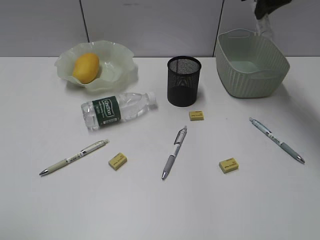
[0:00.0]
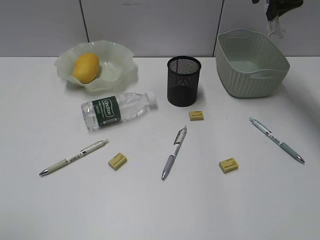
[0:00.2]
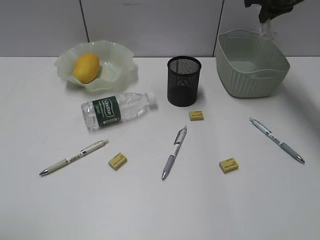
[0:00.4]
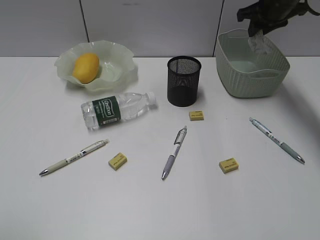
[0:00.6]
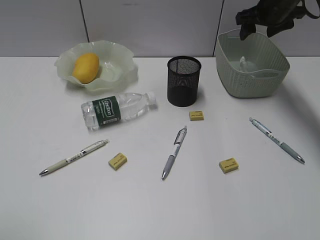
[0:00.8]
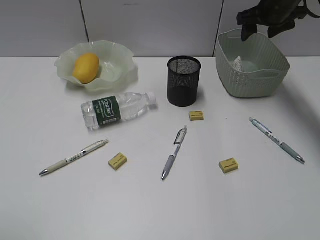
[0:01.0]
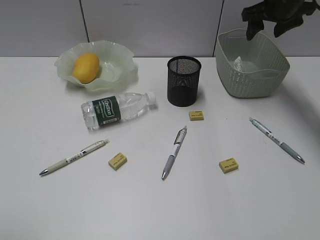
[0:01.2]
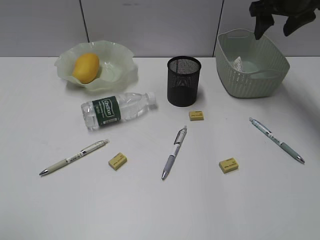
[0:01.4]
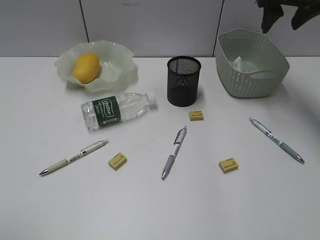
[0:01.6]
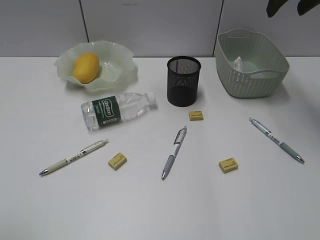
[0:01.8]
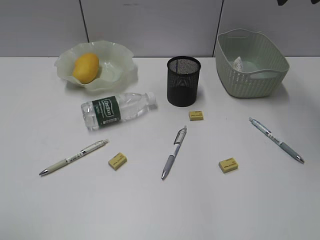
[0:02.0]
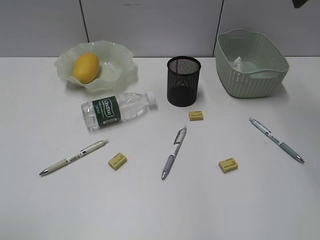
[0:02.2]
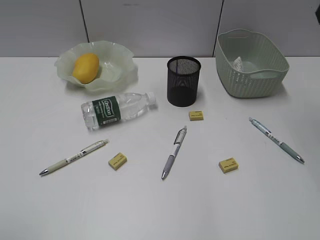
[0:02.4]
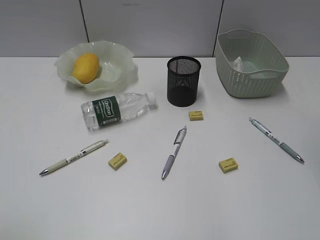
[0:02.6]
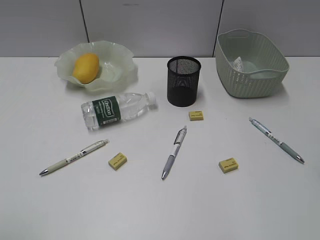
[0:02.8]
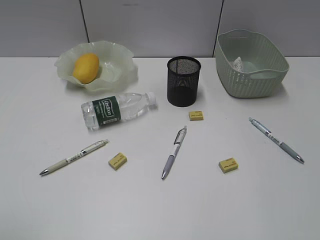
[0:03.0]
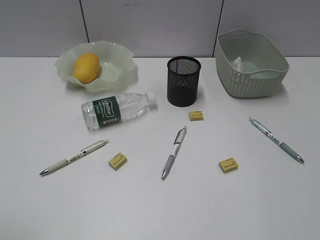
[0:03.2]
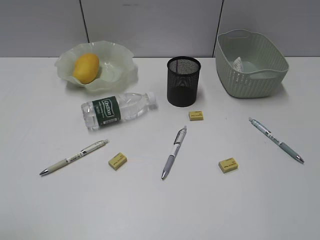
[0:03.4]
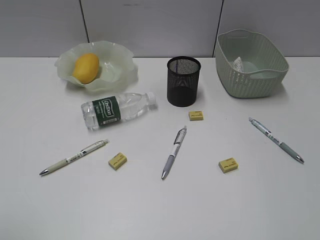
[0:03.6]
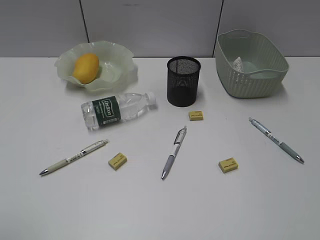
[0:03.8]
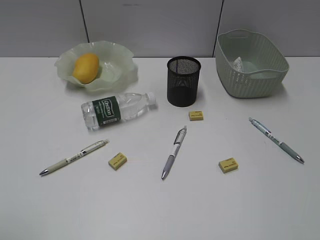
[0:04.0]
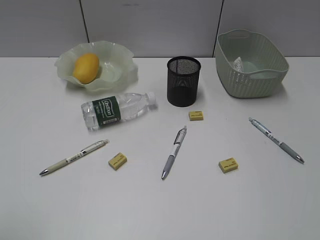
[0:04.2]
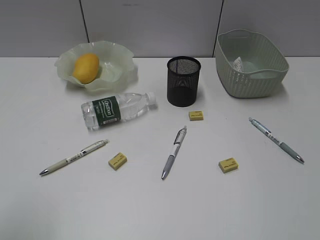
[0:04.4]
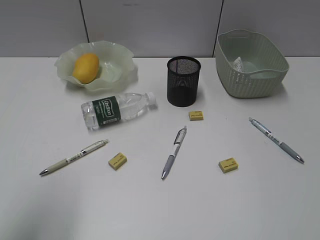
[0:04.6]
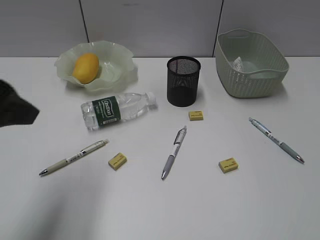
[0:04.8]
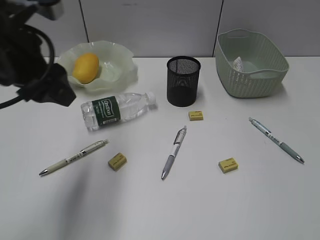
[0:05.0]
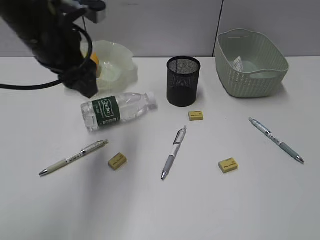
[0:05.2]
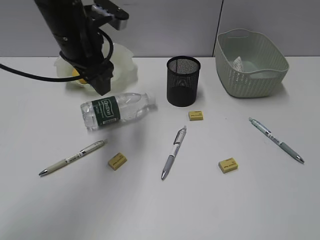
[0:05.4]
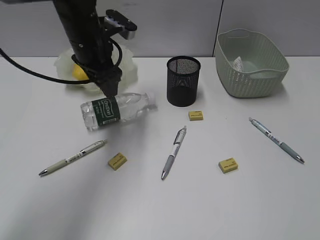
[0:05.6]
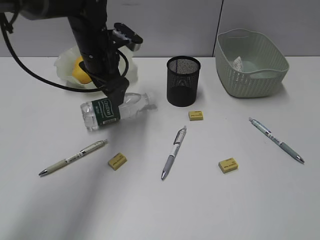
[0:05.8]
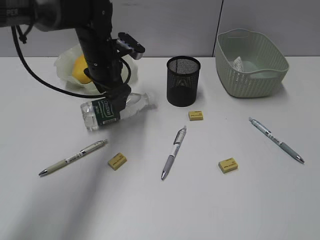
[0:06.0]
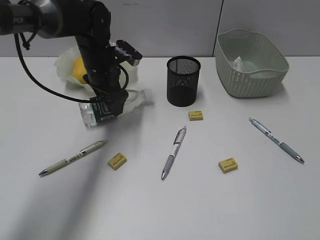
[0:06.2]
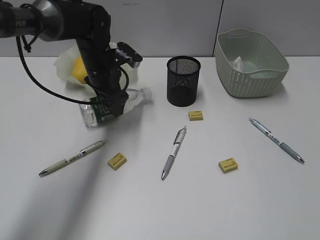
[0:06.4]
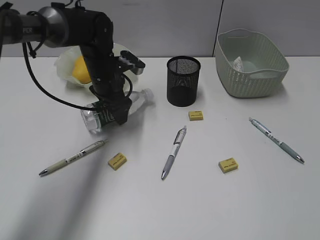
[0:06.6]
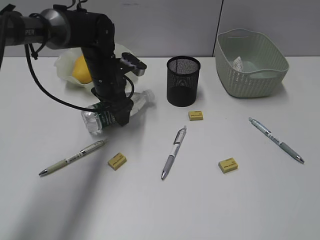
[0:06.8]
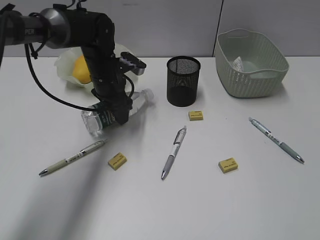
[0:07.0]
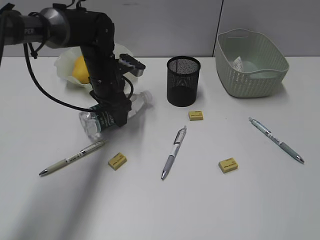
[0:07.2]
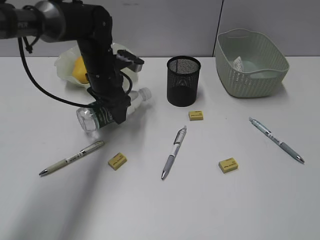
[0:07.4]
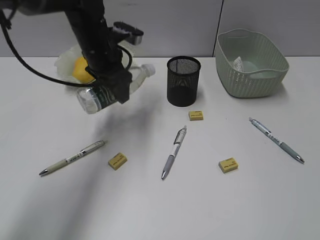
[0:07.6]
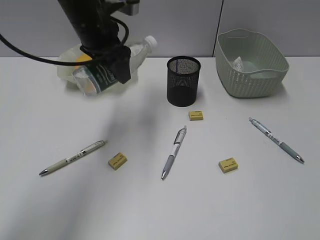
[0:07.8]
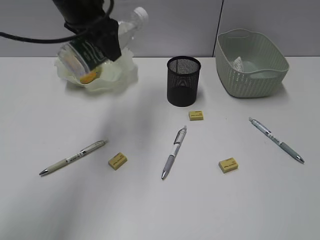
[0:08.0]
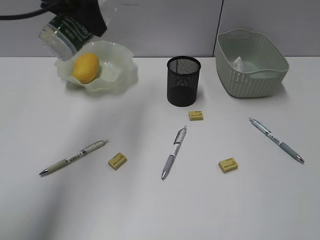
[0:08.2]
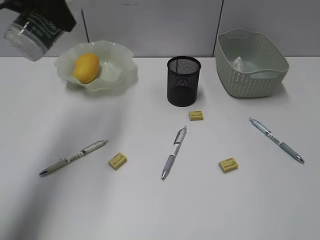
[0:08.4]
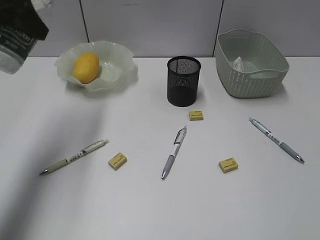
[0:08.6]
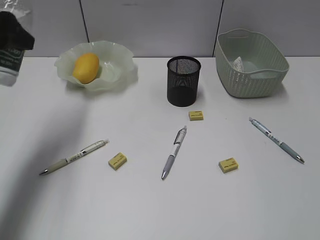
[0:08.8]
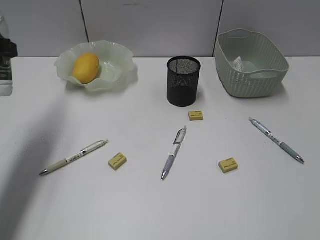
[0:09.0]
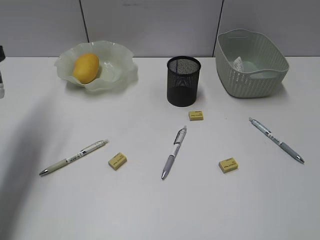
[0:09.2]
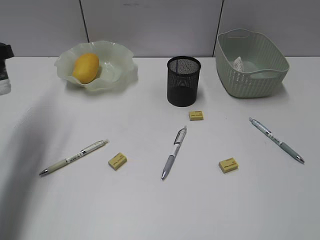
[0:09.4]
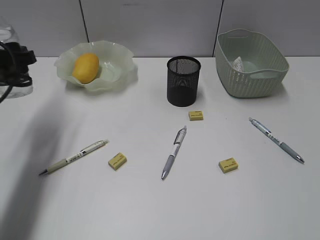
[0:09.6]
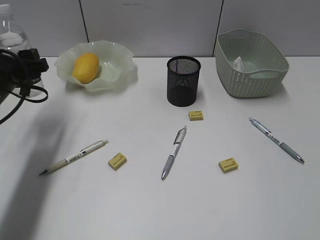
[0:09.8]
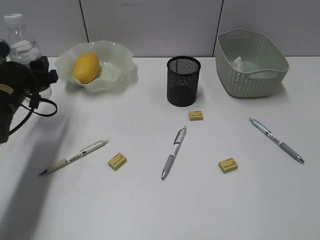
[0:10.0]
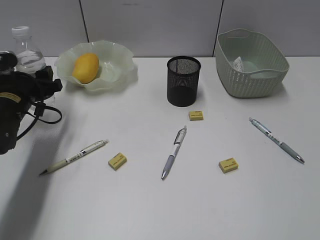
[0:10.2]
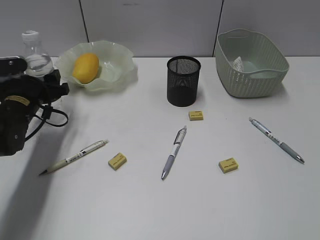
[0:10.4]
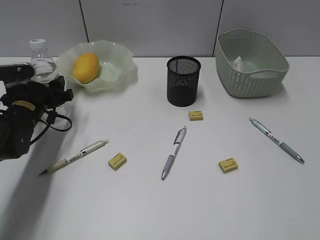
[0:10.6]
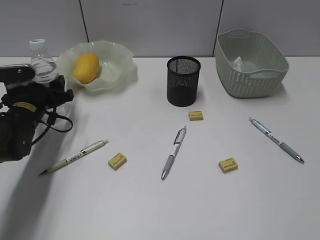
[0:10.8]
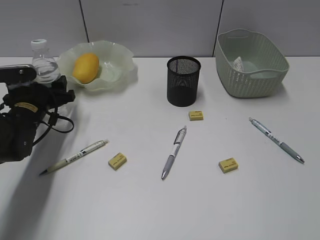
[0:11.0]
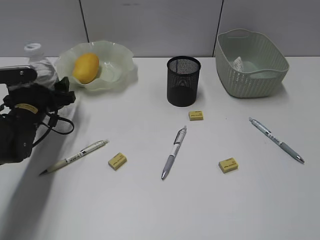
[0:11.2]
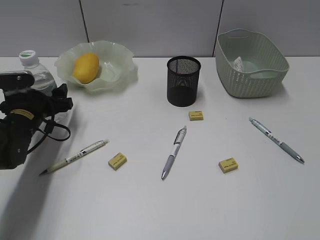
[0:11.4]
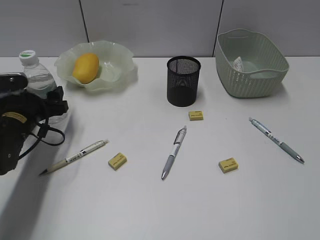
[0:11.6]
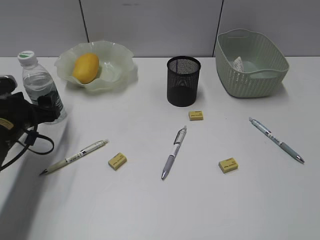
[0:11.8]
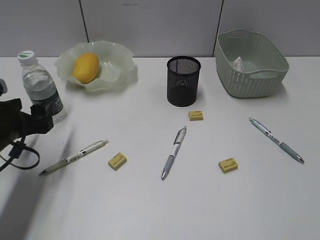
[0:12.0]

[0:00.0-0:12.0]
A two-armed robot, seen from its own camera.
Step, 0:01.0 to 0:06.8: Grasp the bottle with left gripper.
Step, 0:07.0 to 0:11.8: Stand the bottle with left gripper.
0:00.0 to 0:01.6: The right gripper opens.
0:01.6 to 0:03.0: The right gripper goes some 35 cm backward.
0:04.4 to 0:06.0: The left gripper heads forward and to the right, covering about 40 cm.
0:06.0 to 0:07.6: The grippers stay close to where they were, moving slightly.
0:07.6 to 0:09.0: The left gripper heads to the left and backward, covering roughly 20 cm.
0:09.0 to 0:10.4: The left gripper goes about 20 cm downward and forward.
0:10.4 to 0:12.0: The left gripper travels backward by some 10 cm.

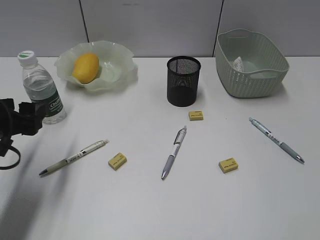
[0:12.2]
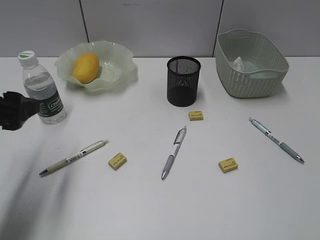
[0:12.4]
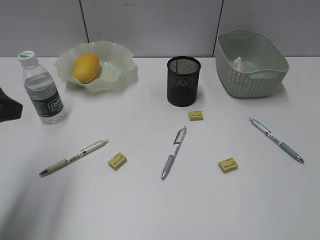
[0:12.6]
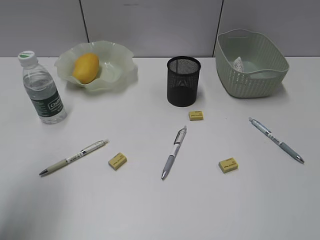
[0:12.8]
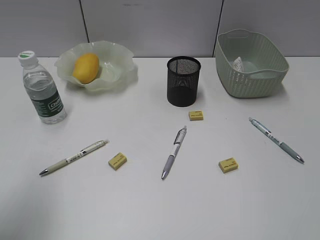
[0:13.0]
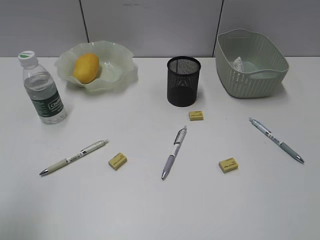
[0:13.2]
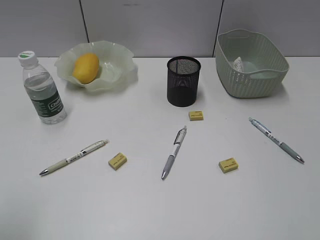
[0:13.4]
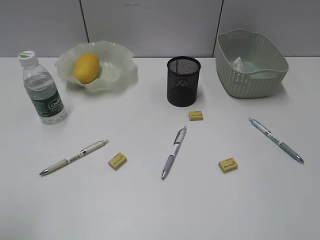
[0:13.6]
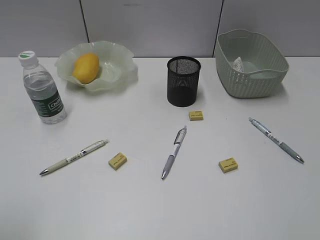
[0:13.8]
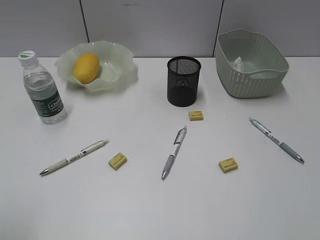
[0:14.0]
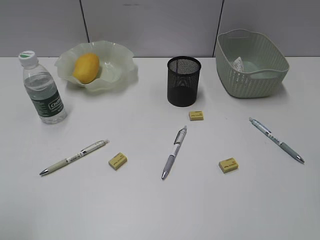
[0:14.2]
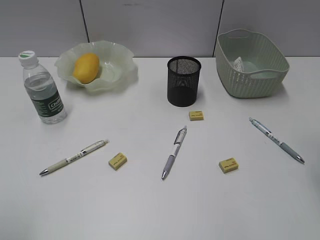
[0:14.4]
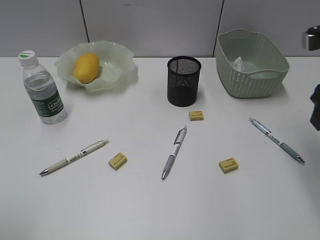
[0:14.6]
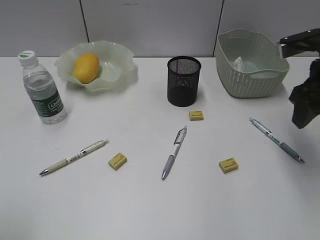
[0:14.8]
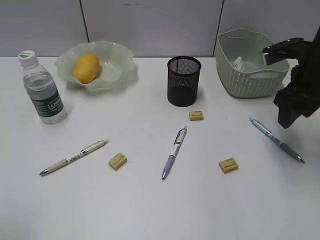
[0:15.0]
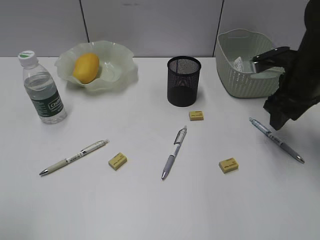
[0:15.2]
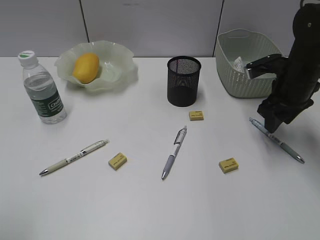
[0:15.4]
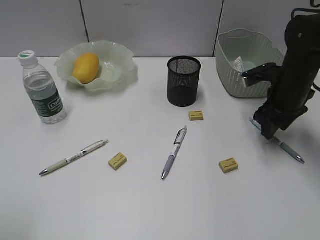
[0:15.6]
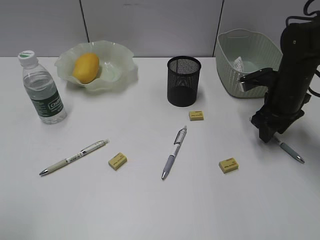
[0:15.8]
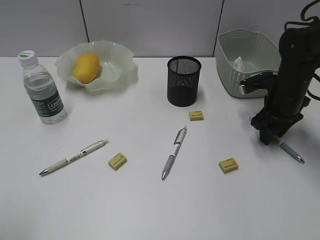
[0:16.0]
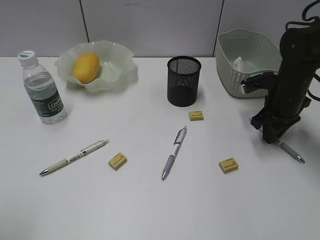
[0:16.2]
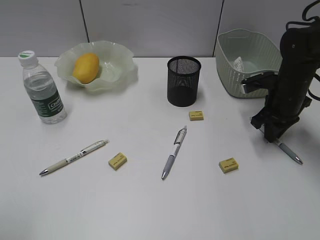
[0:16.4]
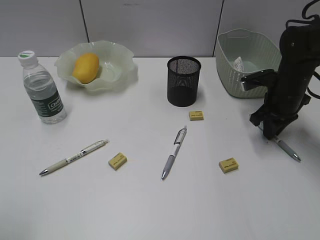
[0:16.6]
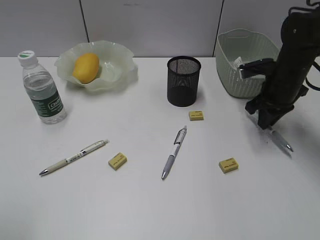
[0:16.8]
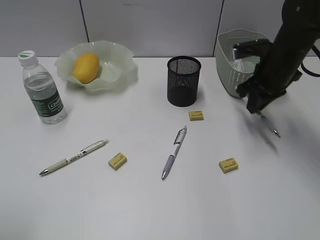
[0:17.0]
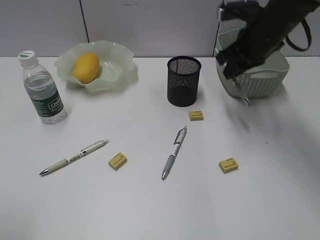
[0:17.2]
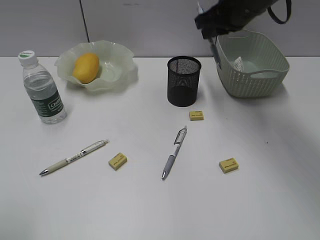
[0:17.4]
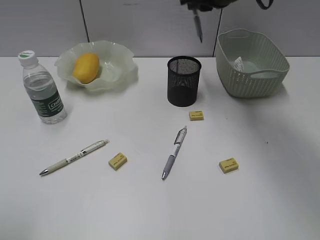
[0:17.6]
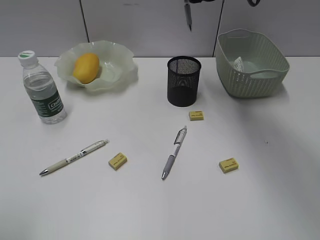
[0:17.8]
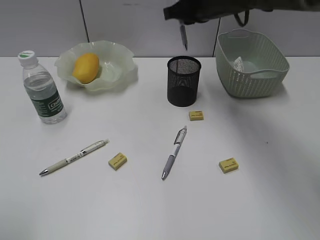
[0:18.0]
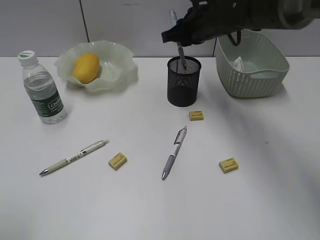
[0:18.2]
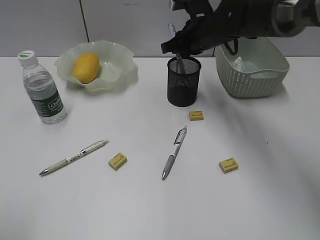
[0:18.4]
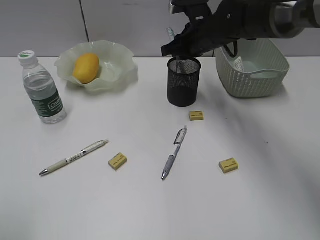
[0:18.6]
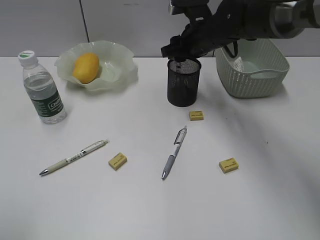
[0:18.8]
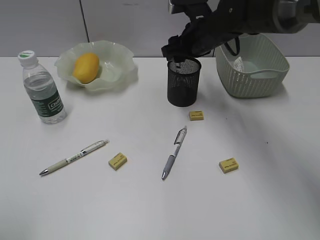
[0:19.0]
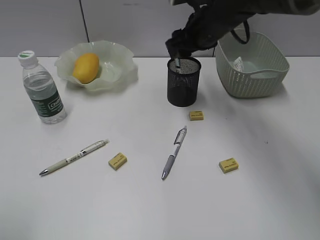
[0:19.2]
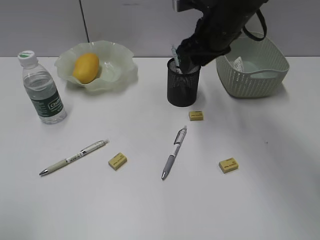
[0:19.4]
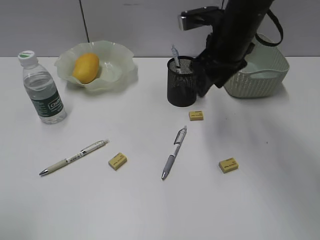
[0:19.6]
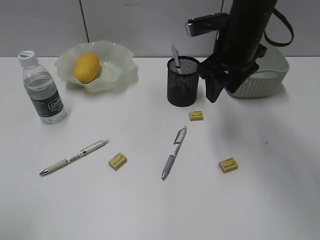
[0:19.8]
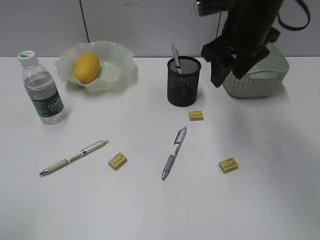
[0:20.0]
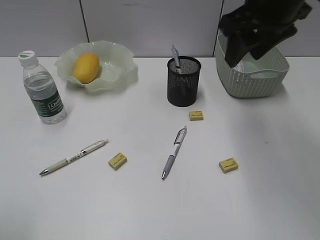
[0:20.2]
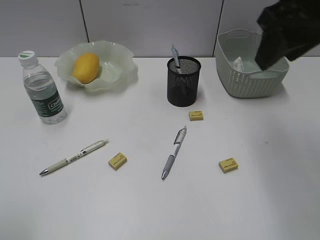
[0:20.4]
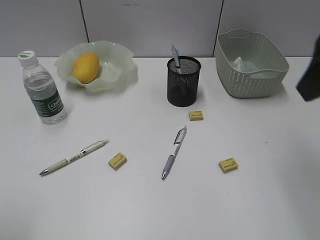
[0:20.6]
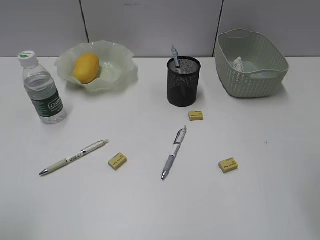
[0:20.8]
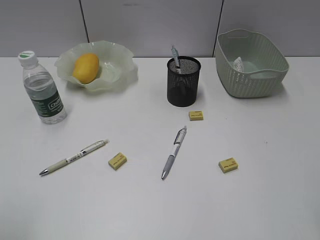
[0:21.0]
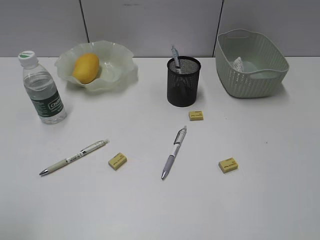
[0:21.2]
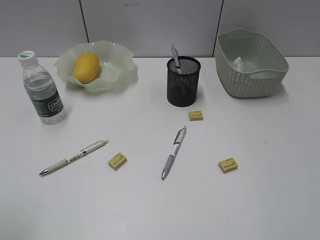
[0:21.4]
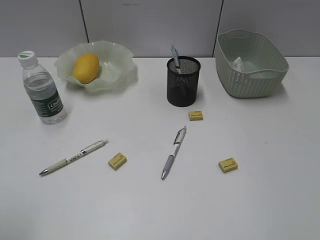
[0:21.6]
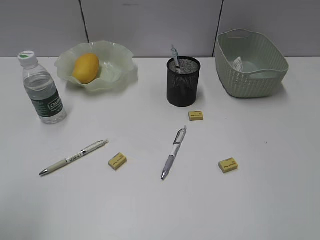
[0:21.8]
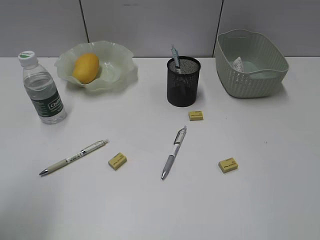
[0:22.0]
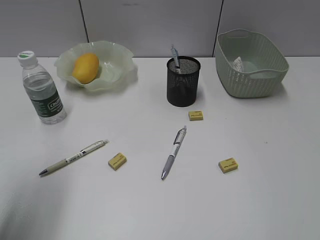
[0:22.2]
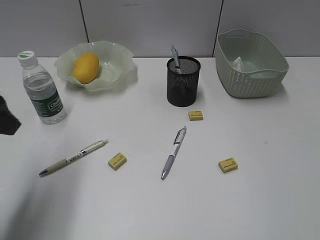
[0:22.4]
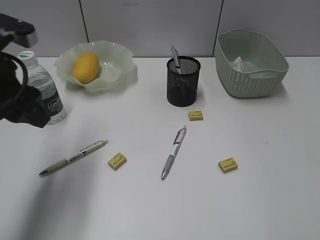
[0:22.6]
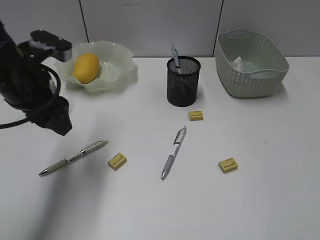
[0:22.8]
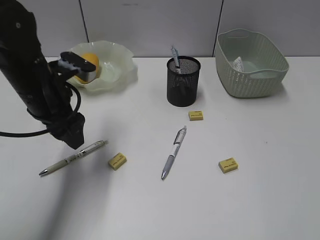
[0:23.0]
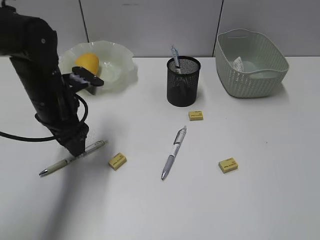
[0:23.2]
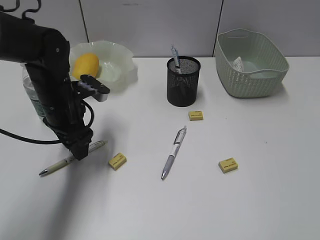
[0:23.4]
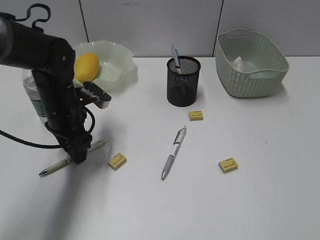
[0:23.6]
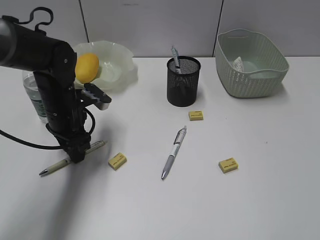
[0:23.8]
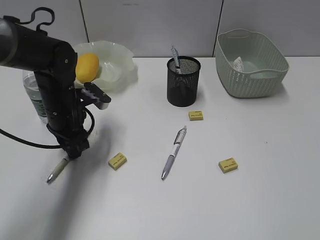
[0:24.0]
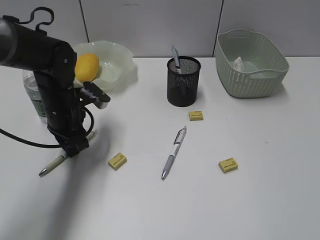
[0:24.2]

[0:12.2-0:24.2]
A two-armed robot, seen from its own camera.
Step, 0:12.2 to 0:16.4: Grasp the blue pen with right gripper.
Step, 0:16.6 to 0:18.8: Place the blue pen in pen holder with right gripper.
0:12.2 to 0:13.8: The left gripper goes about 20 cm backward and upward.
0:13.8 to 0:15.2: The right gripper goes roughly 30 cm forward.
0:15.2 to 0:16.6: The right gripper is displaced downward by some 5 cm, and closes up.
0:16.6 to 0:18.2: The right gripper heads to the left and upward, covering some 20 cm.
0:18.2 to 0:19.8: The right gripper heads backward, covering roughly 10 cm, and opens up.
0:19.8 to 0:21.2: The right gripper travels backward and to the right by roughly 35 cm.
0:21.2 to 0:22.6: The left gripper goes about 20 cm forward.
0:22.6 to 0:24.2: The left gripper goes about 20 cm downward, forward and to the right, and closes.
